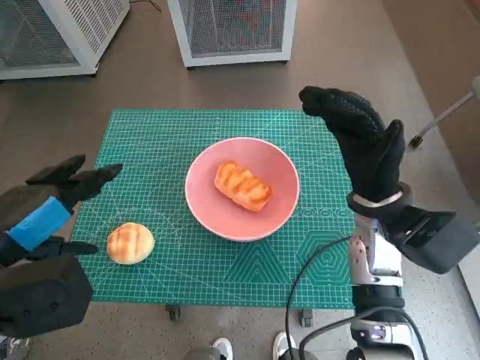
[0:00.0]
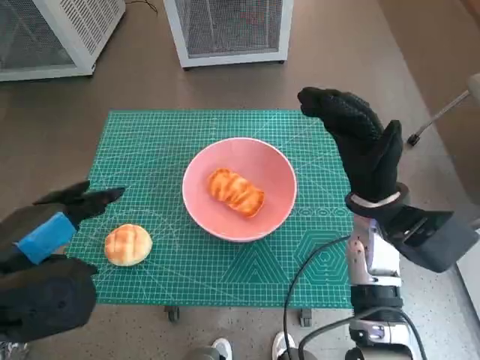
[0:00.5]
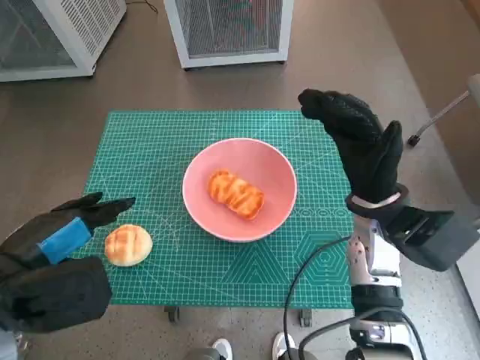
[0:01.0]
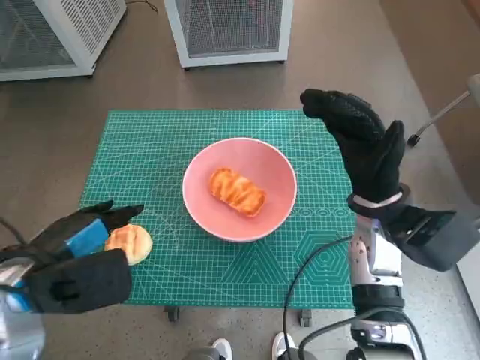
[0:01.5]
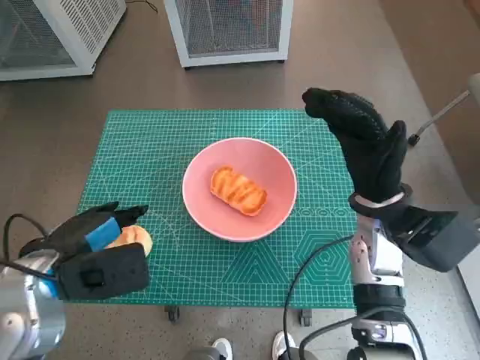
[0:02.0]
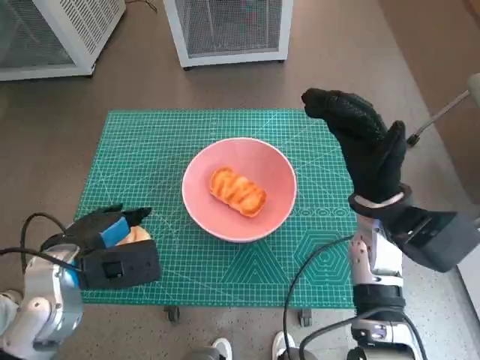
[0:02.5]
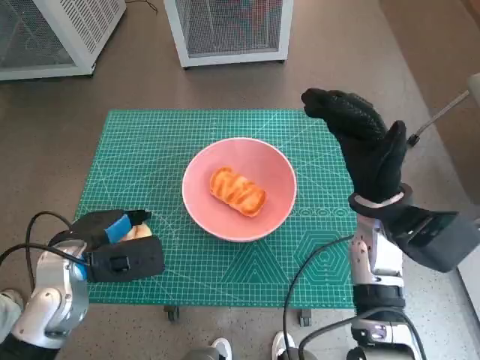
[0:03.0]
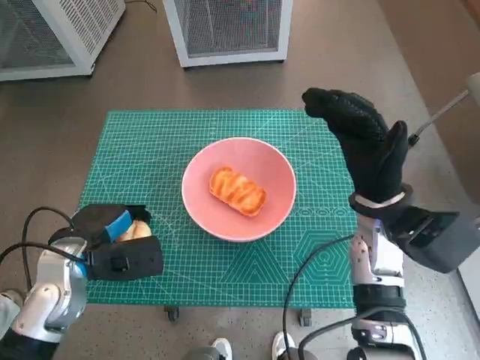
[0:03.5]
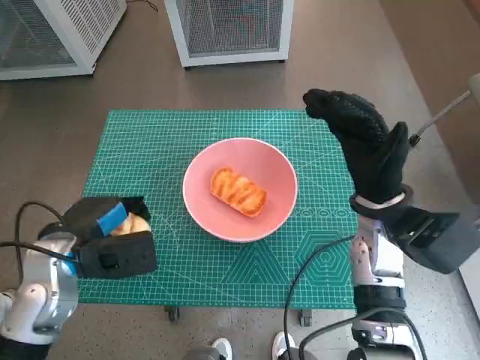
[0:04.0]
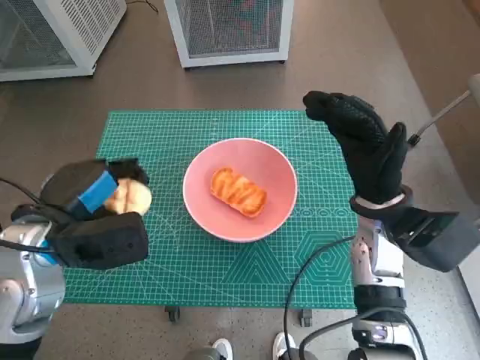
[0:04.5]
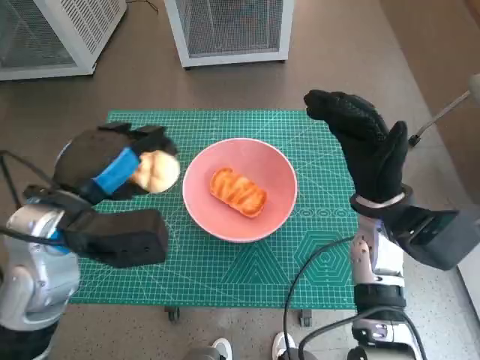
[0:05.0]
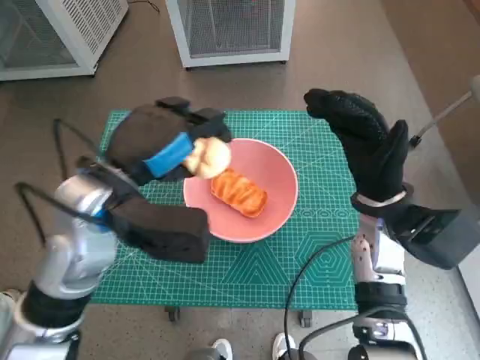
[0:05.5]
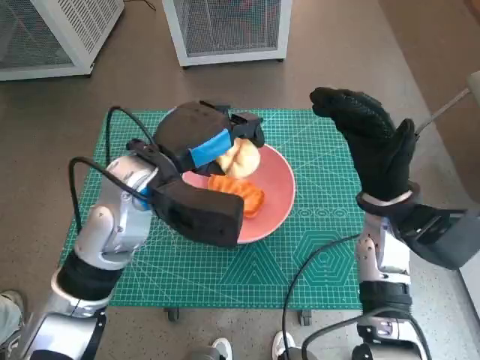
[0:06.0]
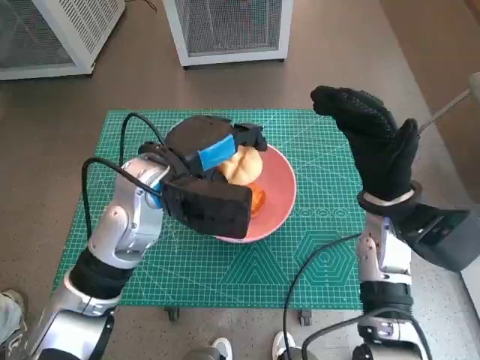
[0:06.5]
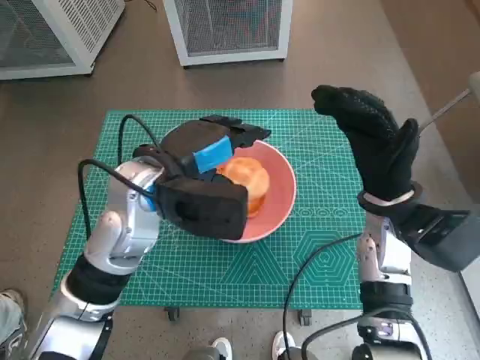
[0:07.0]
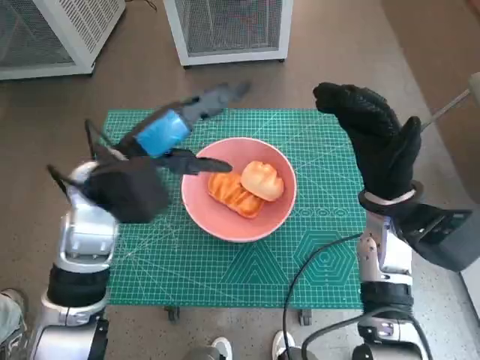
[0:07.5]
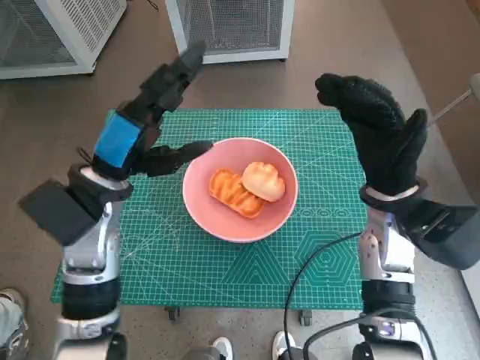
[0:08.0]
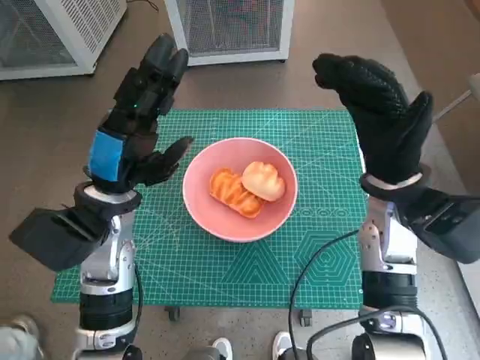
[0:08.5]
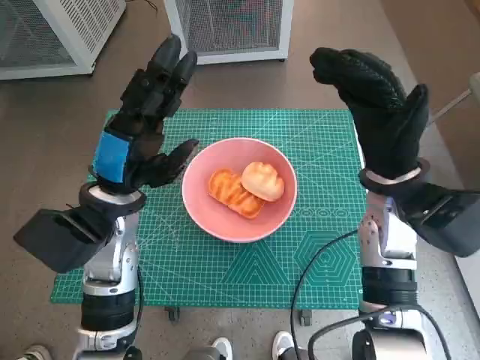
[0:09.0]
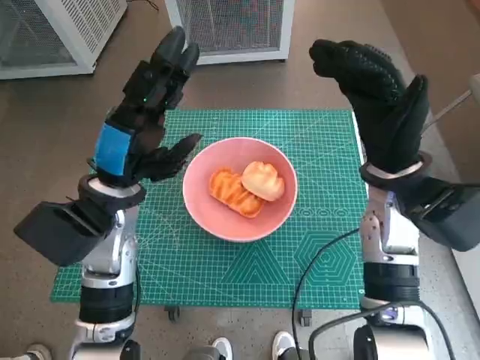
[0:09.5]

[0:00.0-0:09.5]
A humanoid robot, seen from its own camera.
Task of the whole recording: Push the bowl into the center of the table and put the bread into the bowl.
Step, 0:00.0 to 0:03.0: Grasp the round bread with left hand.
Step, 0:03.5 to 0:06.5: Place the round bread in pink bowl with left hand.
0:00.0 to 0:02.0: The left hand heads downward, covering roughly 10 cm.
0:02.0 to 0:04.0: The left hand ends up roughly 5 cm from where it was.
0:04.0 to 0:05.5: The left hand goes about 15 cm upward and to the right.
